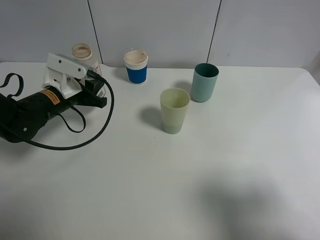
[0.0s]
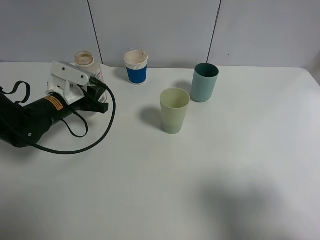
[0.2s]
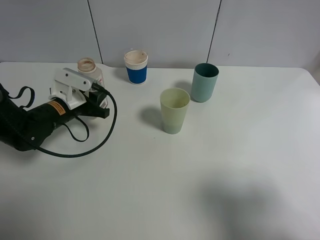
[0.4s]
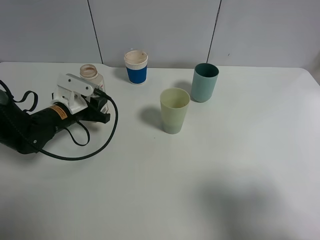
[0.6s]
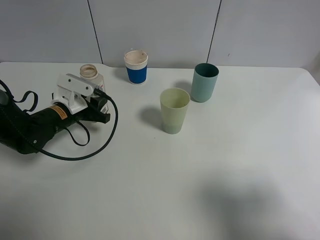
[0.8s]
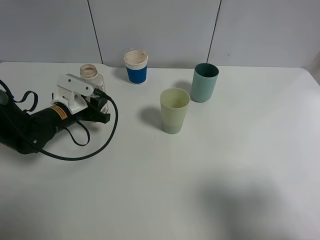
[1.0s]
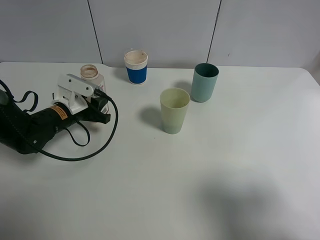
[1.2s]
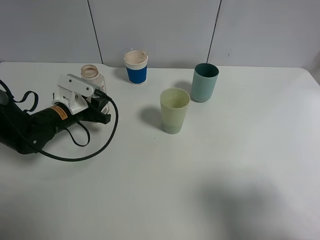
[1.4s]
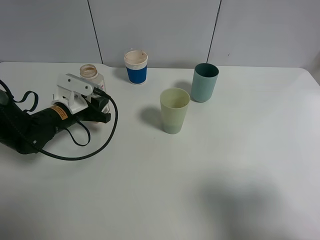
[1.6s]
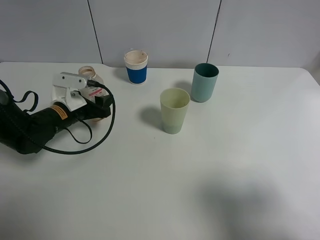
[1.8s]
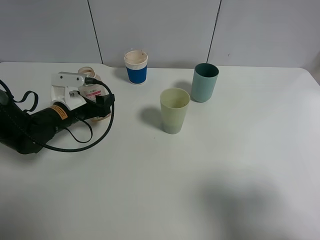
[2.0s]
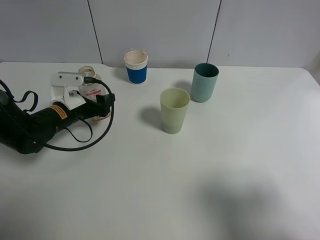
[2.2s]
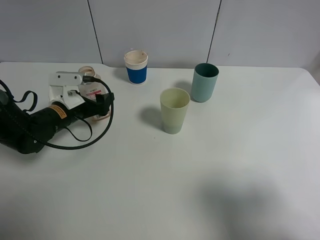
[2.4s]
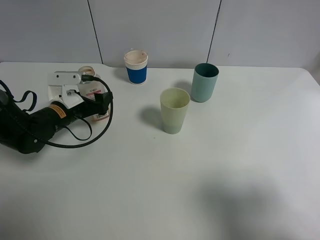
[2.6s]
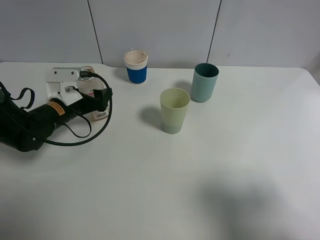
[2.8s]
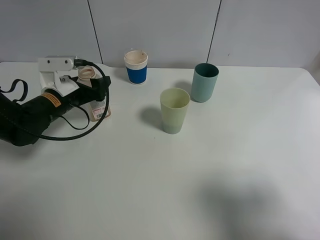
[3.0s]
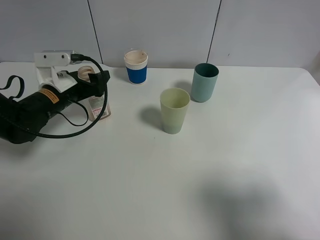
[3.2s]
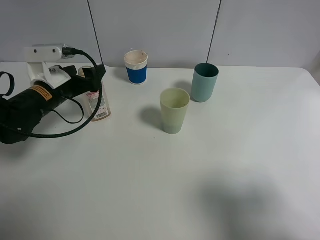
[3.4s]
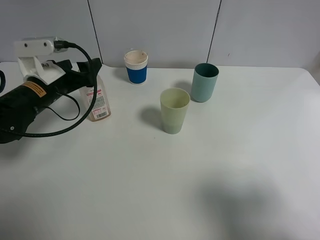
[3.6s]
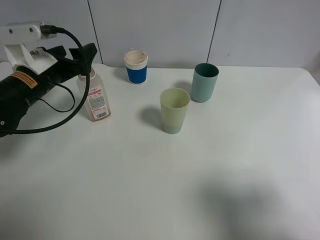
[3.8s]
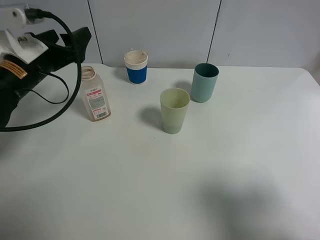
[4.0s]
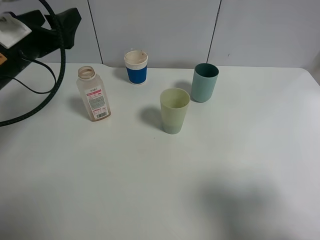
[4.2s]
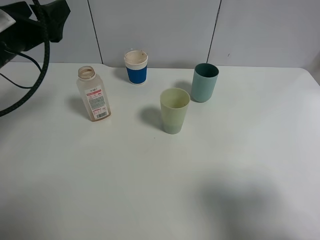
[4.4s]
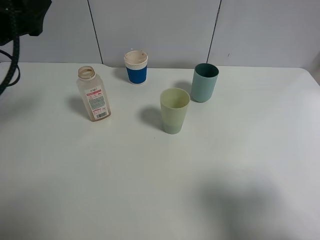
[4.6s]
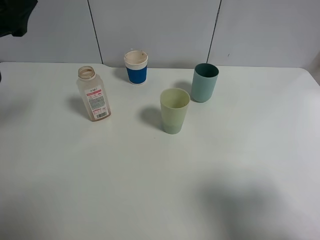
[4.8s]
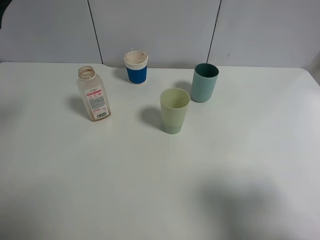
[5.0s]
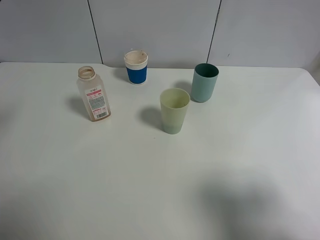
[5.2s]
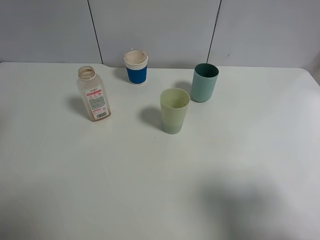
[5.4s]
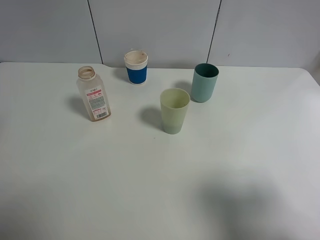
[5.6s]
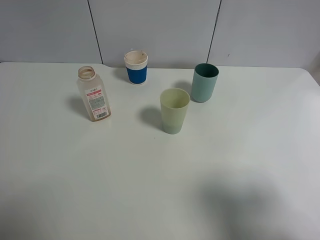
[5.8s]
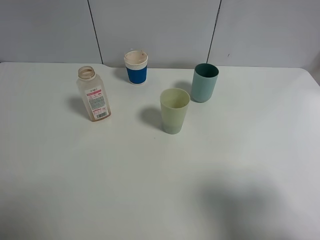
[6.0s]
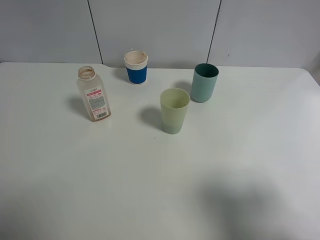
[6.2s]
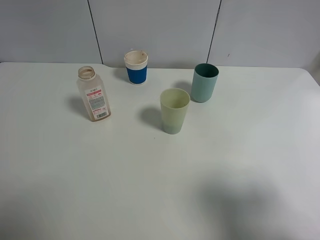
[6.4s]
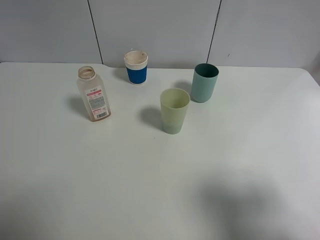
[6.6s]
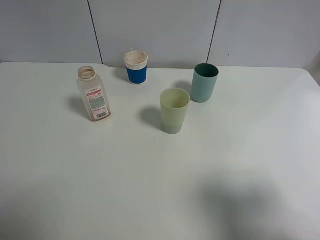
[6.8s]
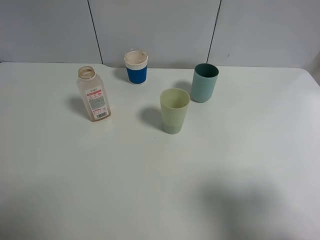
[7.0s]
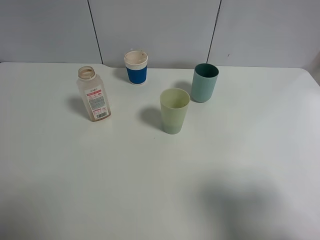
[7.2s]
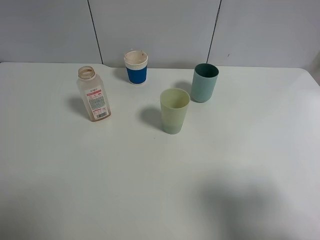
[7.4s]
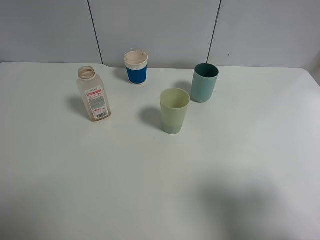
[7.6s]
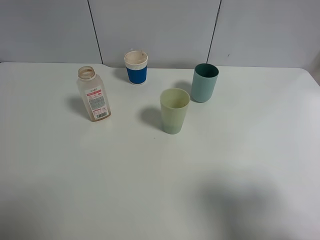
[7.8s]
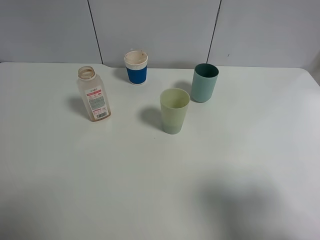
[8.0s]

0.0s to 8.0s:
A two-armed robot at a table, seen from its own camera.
Task of the whole recording: use a gripper to hold the bottle of the drink and pour it into a random cup.
Step, 0.0s to 2.8s: Place the cranberry juice bottle on the table with the left gripper.
0.0s to 1.6s: The grippers stay close to where they were, moving slightly.
1.6s to 3.2s: The left gripper opens its fingers.
3.2s to 4.8s: The left gripper moves upward and backward, some 20 cm.
4.8s to 6.4s: The left gripper moves backward, some 20 cm.

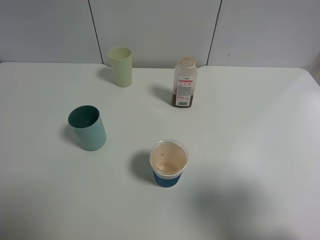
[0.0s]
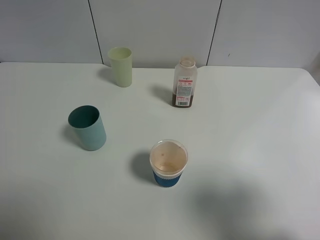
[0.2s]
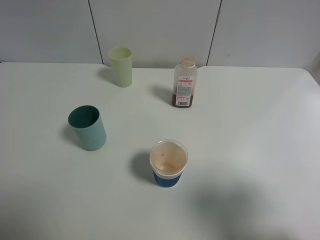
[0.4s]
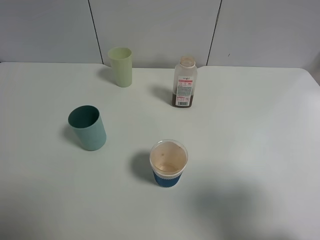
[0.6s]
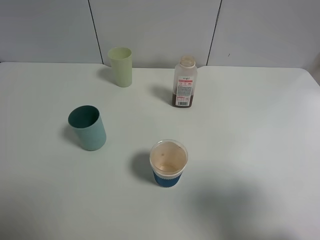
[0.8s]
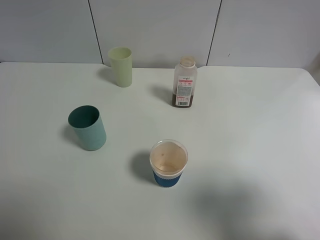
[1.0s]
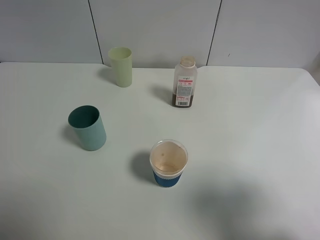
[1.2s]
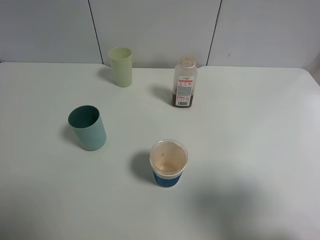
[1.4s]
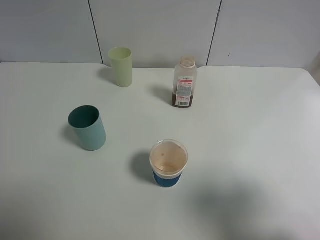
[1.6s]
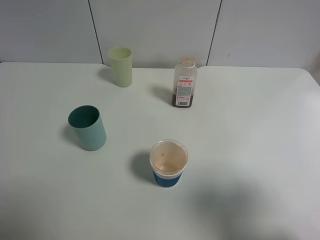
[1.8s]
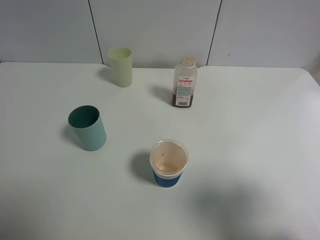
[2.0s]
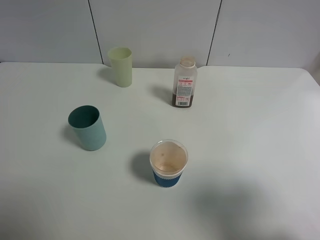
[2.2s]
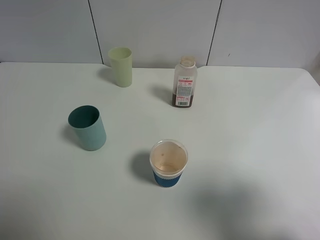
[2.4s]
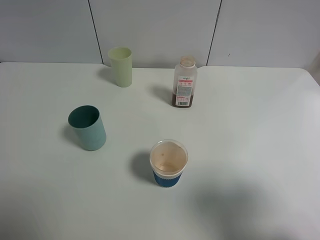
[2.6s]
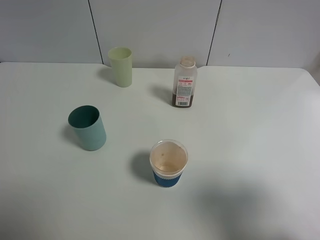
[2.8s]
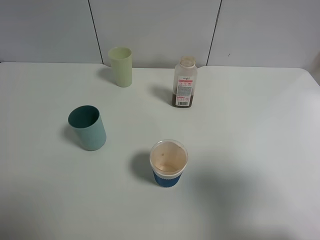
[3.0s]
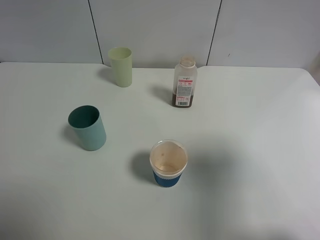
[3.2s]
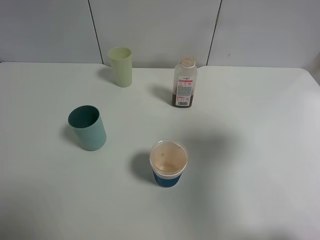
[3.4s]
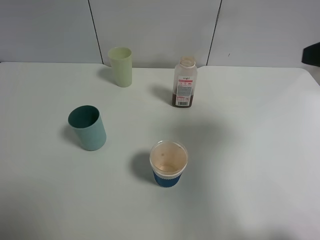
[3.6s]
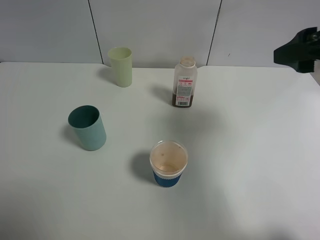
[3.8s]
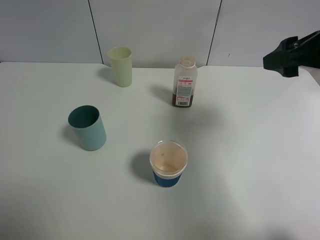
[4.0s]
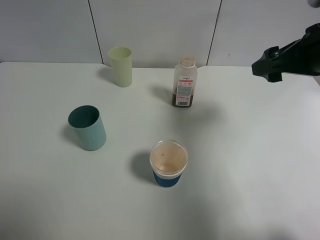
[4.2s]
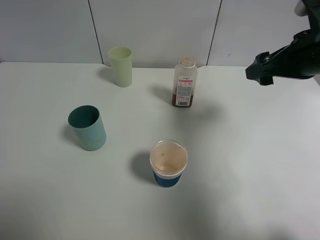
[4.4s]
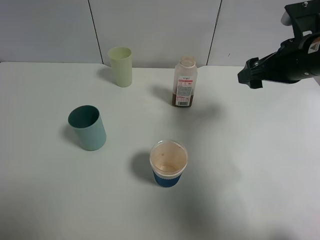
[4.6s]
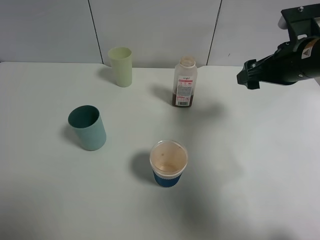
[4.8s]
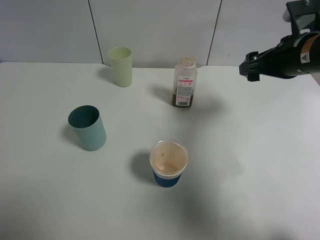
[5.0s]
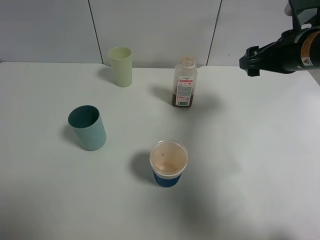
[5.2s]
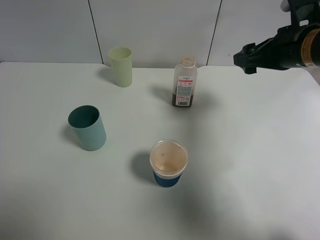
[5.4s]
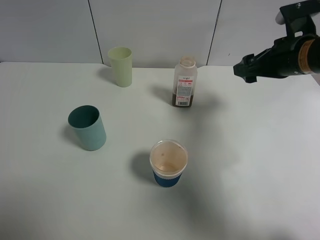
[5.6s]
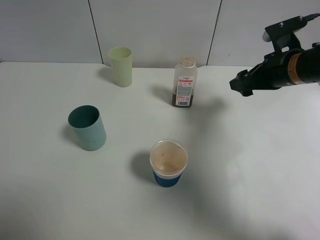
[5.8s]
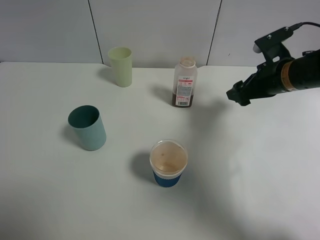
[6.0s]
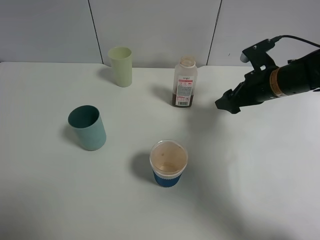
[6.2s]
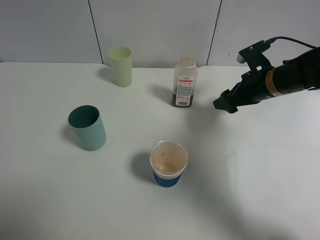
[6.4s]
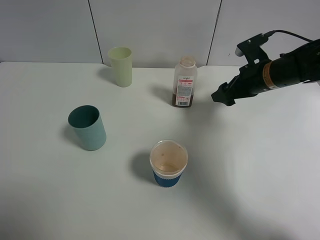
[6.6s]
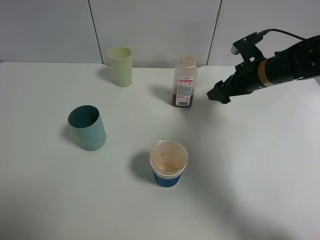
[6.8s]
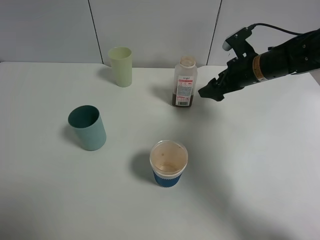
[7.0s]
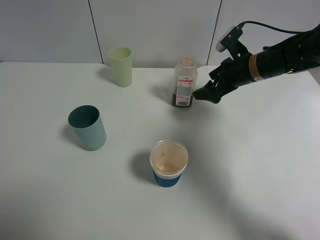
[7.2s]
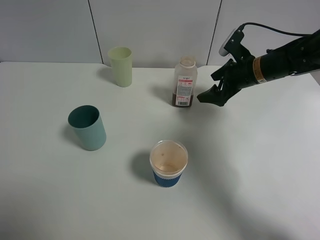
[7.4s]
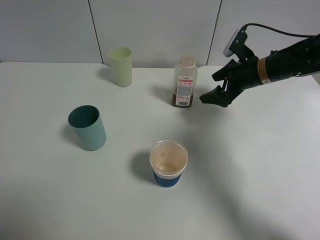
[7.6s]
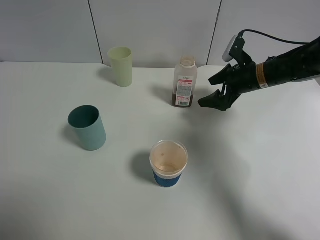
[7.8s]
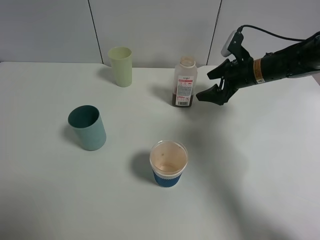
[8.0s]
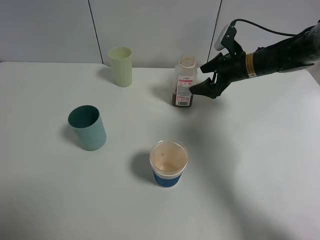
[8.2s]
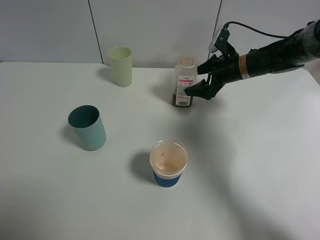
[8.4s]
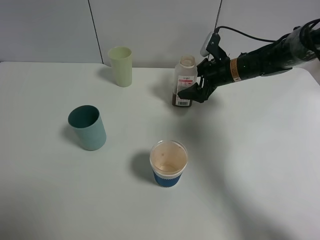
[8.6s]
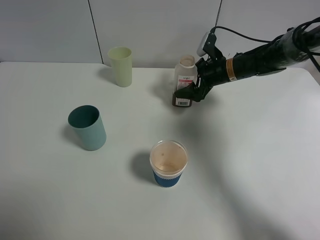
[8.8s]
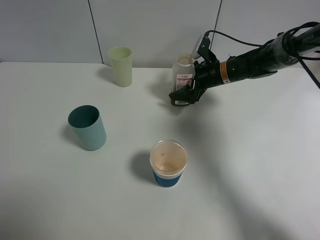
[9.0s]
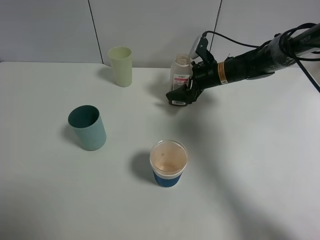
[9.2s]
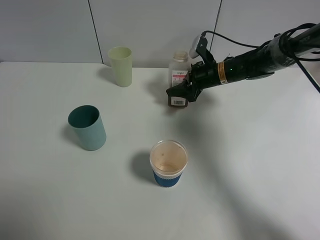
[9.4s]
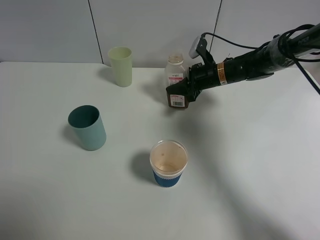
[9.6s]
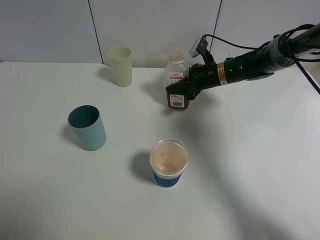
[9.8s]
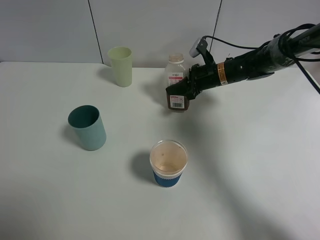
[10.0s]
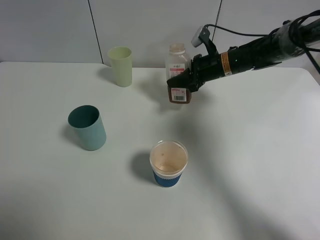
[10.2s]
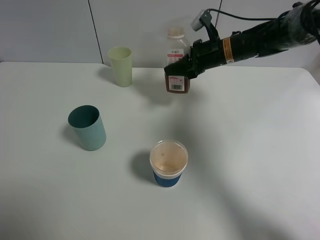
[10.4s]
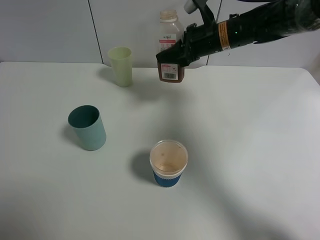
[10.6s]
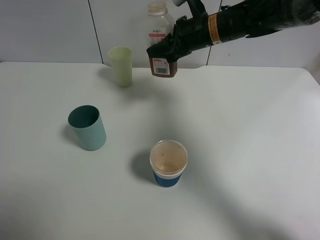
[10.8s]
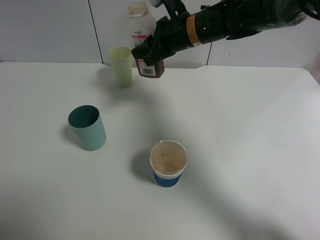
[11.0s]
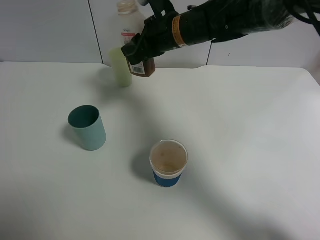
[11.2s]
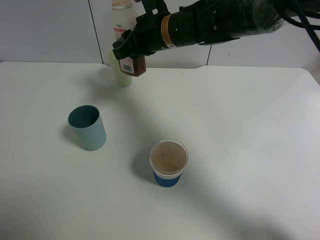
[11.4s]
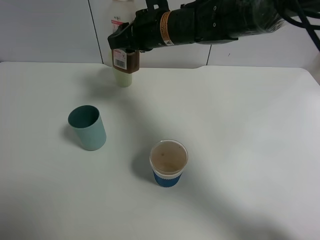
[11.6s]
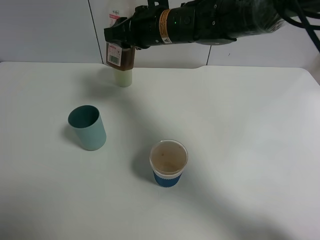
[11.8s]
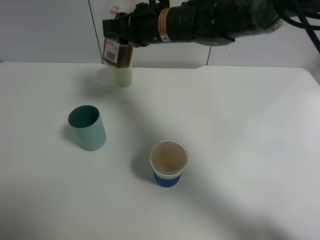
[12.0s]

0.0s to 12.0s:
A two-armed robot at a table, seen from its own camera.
Task of the whole recording: use a gripper to hold the bottle of the drink and pour it into a random cup.
Step, 0.0s to 9.2s: Grasp the cranberry juice bottle with the right gripper.
0.0s to 1.6s: The two grippers keep their place.
1.6s to 3.0s: There are only small adjustments of the grippers.
3.0s to 4.4s: The right gripper shifts some 20 cm forward.
4.4s to 6.0s: The right gripper travels downward and forward by some 10 cm.
6.0s to 7.6s: The right gripper moves forward, some 5 cm.
7.6s to 9.0s: The right gripper shifts approximately 10 cm to the left and forward.
9.0s to 10.4s: The right gripper goes some 10 cm upward, and closes its fingers.
10.4s to 12.0s: The right gripper moves to the left and upward, about 15 cm.

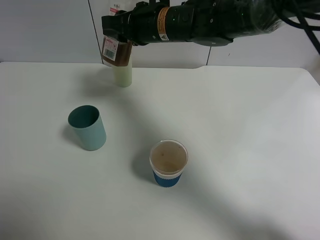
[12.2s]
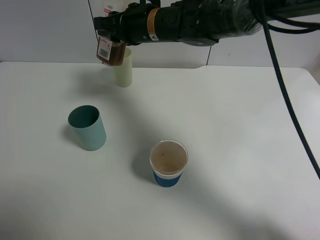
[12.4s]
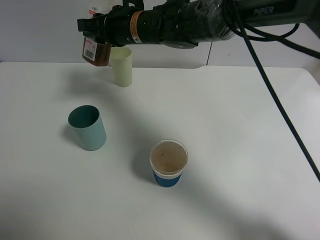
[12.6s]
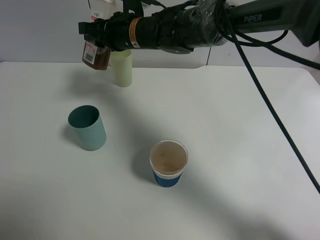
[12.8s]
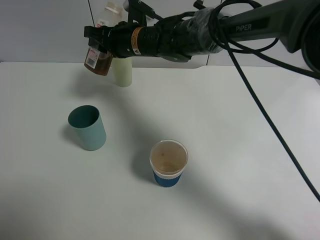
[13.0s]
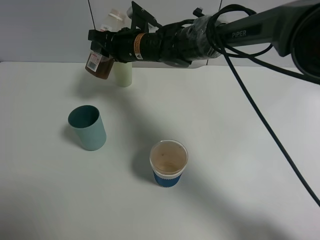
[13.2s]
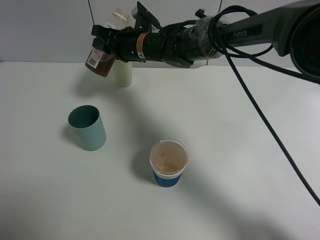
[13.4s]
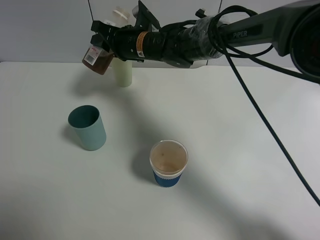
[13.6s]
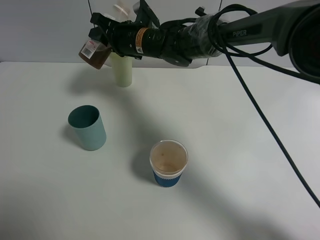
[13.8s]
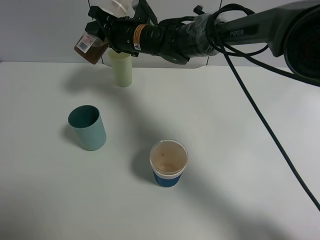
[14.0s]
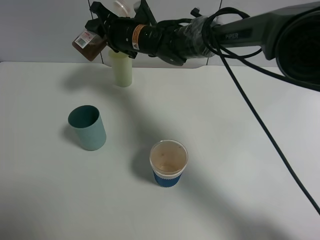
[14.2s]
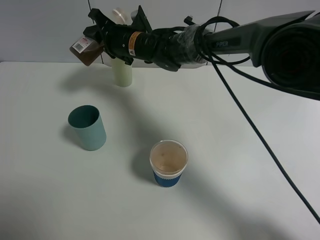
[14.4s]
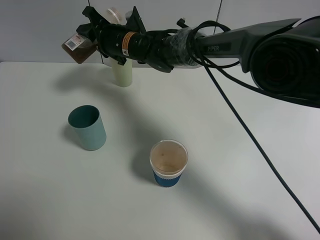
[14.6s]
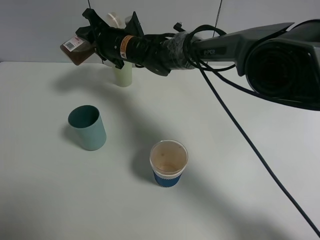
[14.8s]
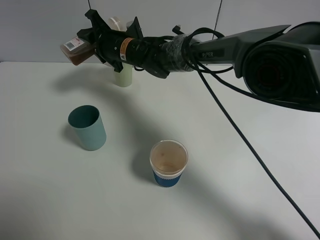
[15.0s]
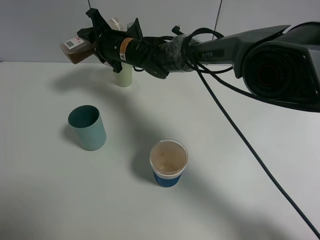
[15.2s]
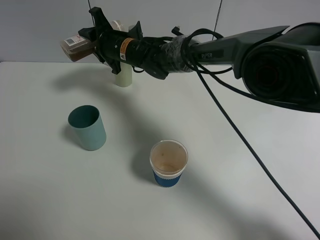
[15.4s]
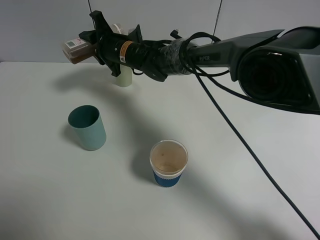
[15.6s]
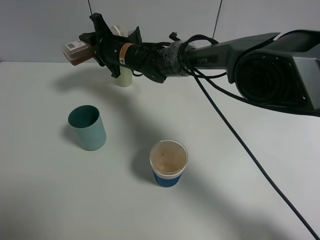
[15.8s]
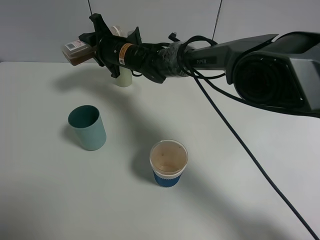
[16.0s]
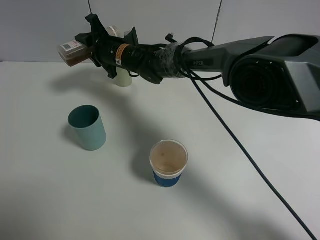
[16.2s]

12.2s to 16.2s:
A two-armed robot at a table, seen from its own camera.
Task of the whole recording: use a gripper to hold the bottle of the drink and pour it into a random cup.
12.2s to 13.6s: The right gripper moves downward, roughly 5 cm.
14.8s to 16.2s: The grippers stay close to where they were, moving slightly.
